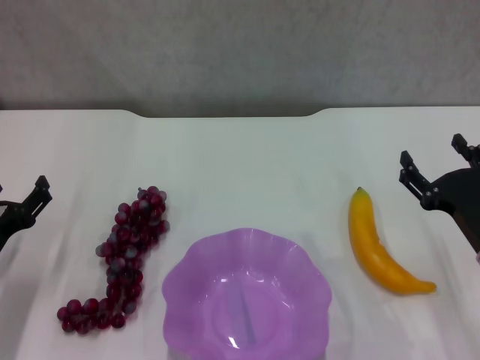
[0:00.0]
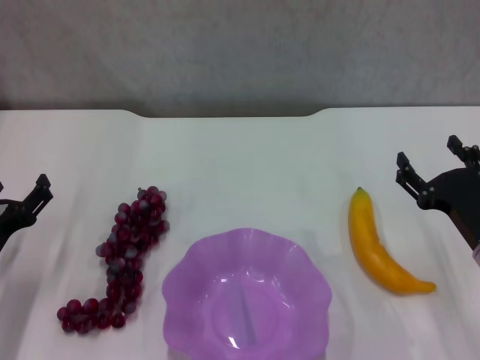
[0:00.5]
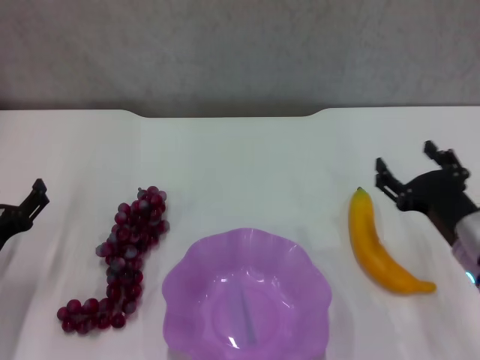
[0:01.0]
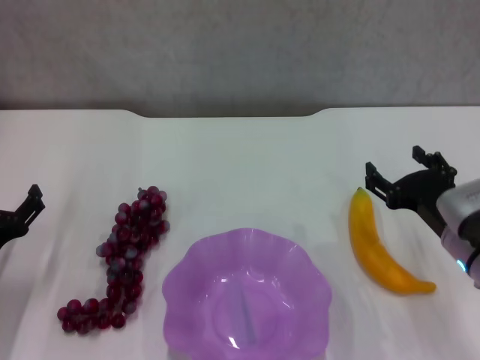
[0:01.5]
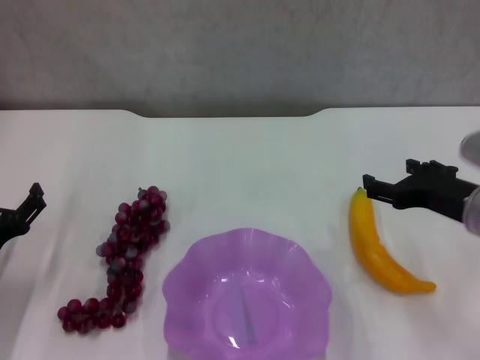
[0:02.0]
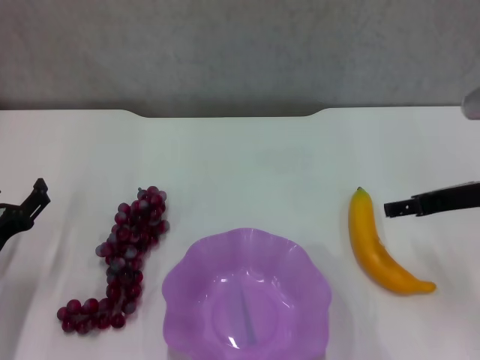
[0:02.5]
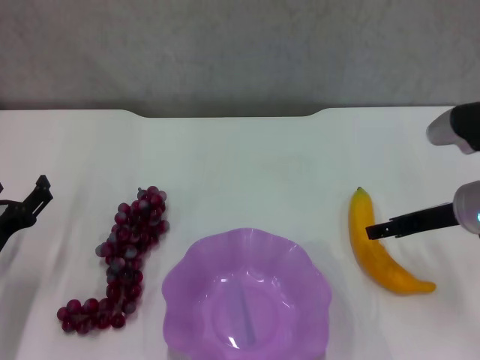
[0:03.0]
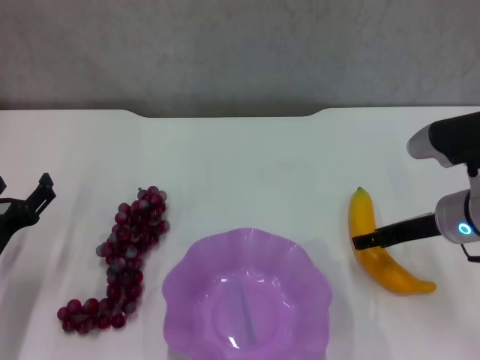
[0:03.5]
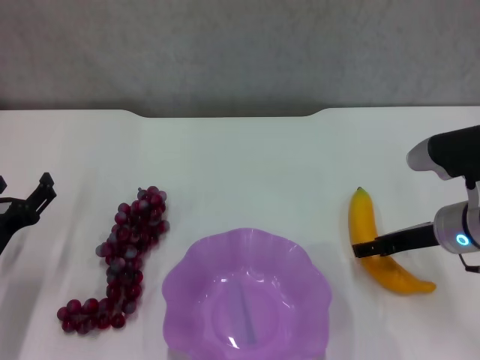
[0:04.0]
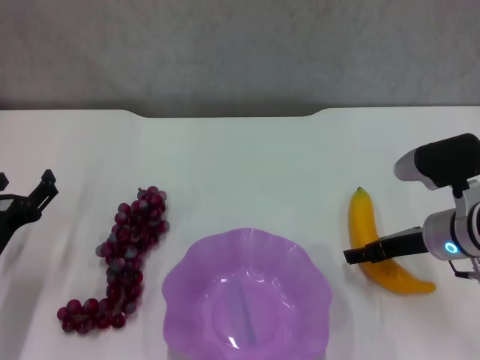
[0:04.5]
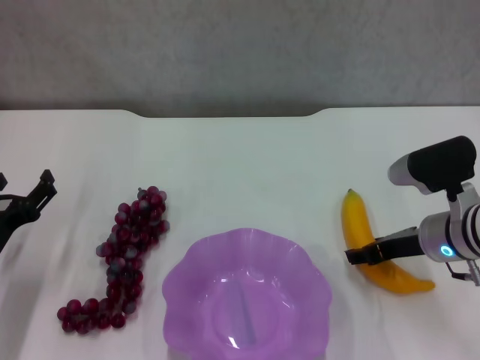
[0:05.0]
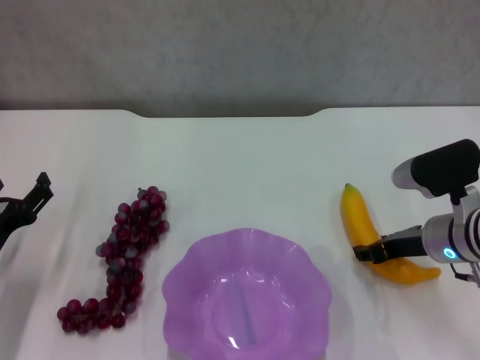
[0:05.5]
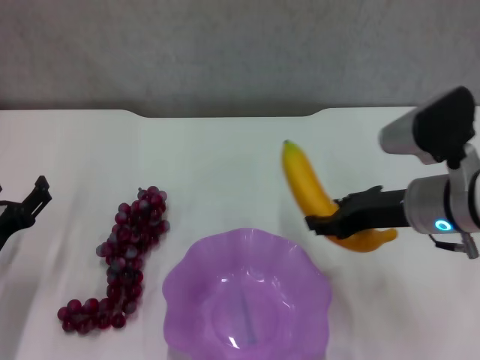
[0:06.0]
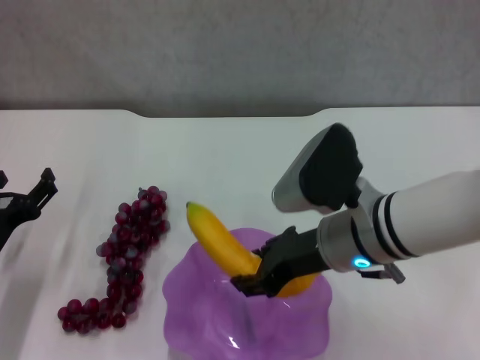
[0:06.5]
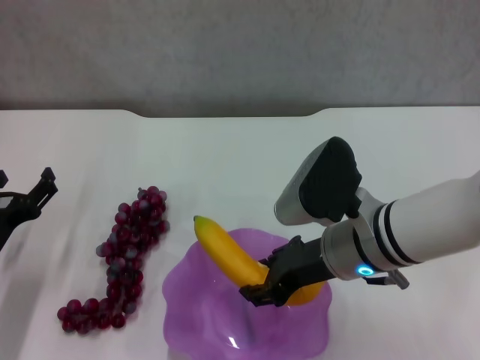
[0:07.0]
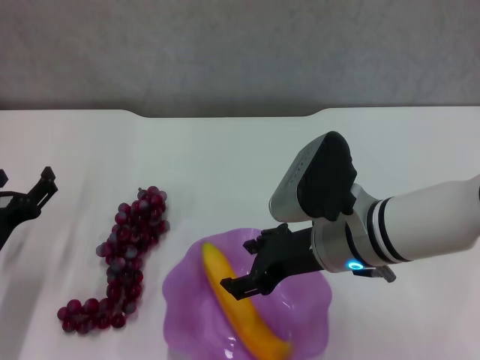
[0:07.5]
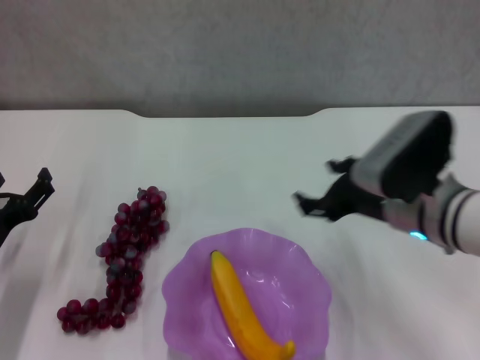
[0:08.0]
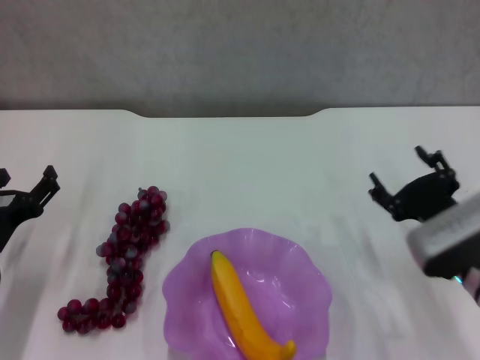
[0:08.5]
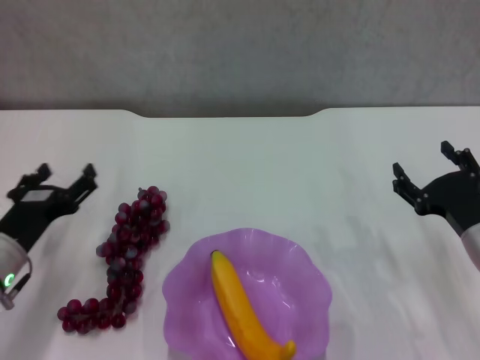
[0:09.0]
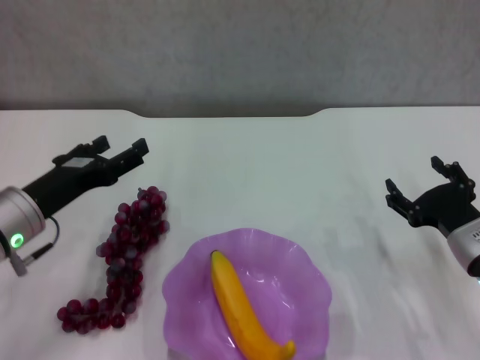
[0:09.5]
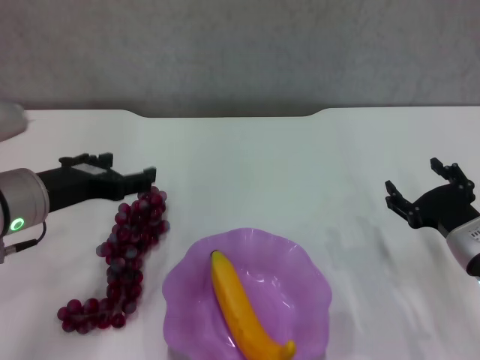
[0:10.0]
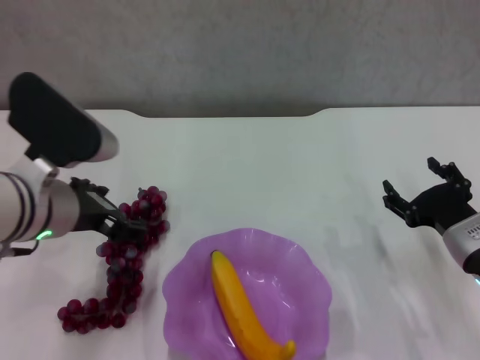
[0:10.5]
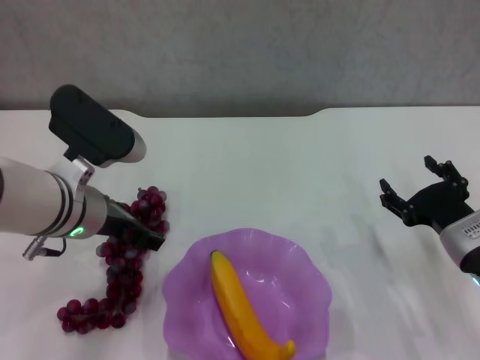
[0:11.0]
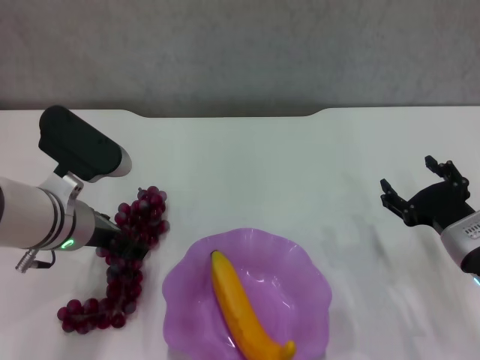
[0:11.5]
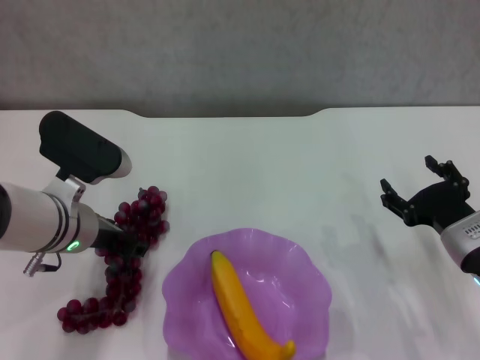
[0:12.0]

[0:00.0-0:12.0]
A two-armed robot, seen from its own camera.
Step, 0:00.0 to 0:05.0: Grasp the banana with right gripper.
Step, 0:05.5 to 0:07.5: Place the banana in the purple plate with right gripper.
0:00.0 to 0:02.0: The right gripper travels upward by roughly 10 cm.
0:02.0 to 0:04.0: The right gripper ends up about 5 cm from where it was.
0:04.0 to 0:06.0: The right gripper is displaced upward and to the left by approximately 10 cm, and closes its fingers.
0:06.0 to 0:08.0: The right gripper travels to the left and back again, approximately 10 cm each way, and opens.
0:08.0 to 0:10.0: The right gripper moves downward and to the right, approximately 10 cm. The left gripper is displaced upward and to the right by about 15 cm.
0:10.0 to 0:12.0: The left gripper changes place by roughly 5 cm.

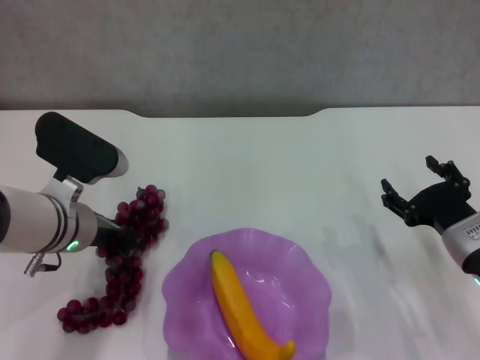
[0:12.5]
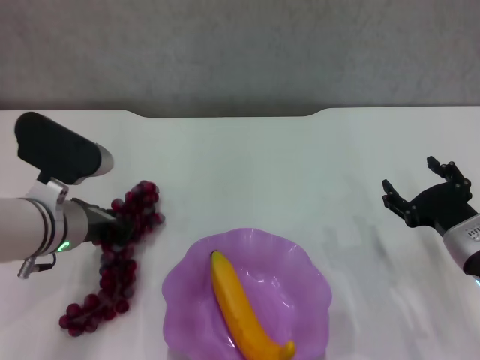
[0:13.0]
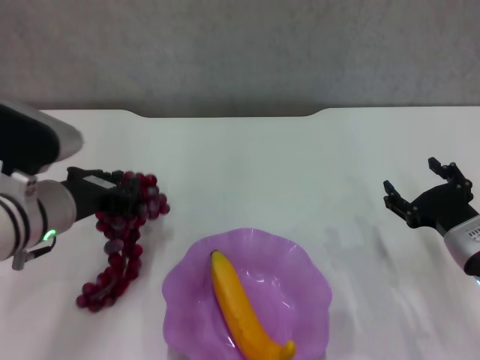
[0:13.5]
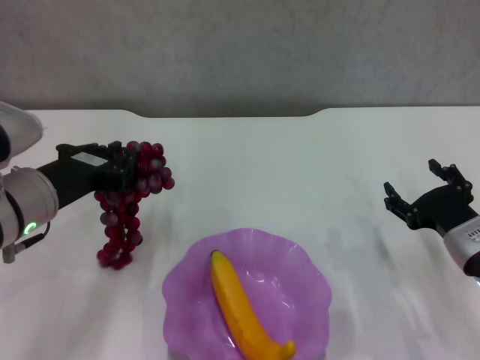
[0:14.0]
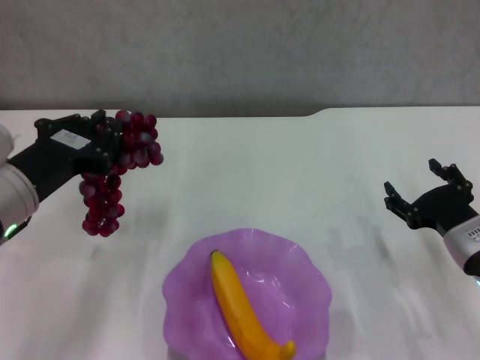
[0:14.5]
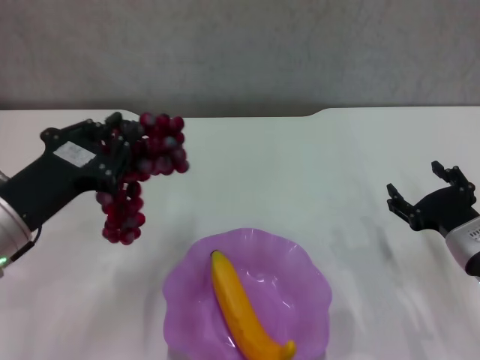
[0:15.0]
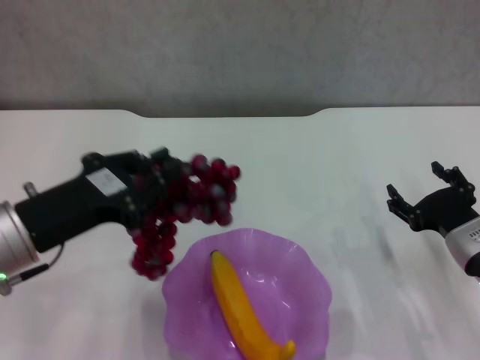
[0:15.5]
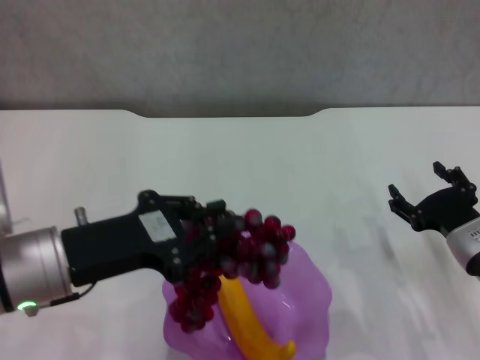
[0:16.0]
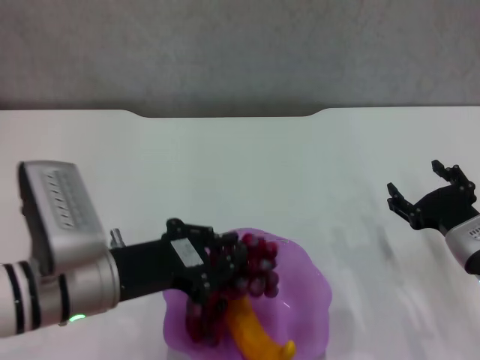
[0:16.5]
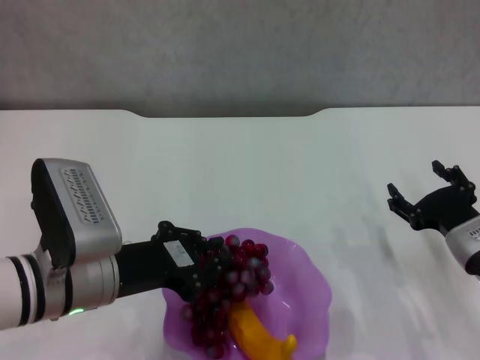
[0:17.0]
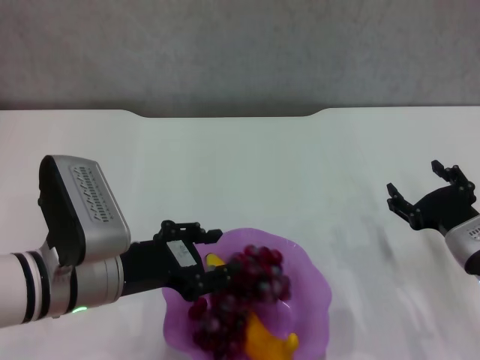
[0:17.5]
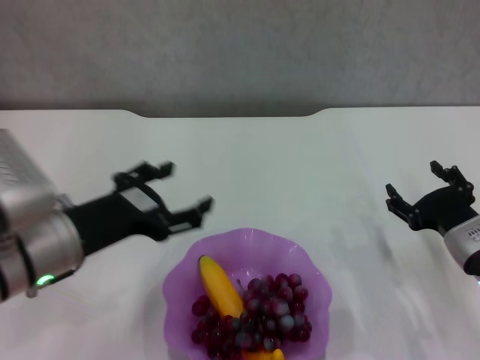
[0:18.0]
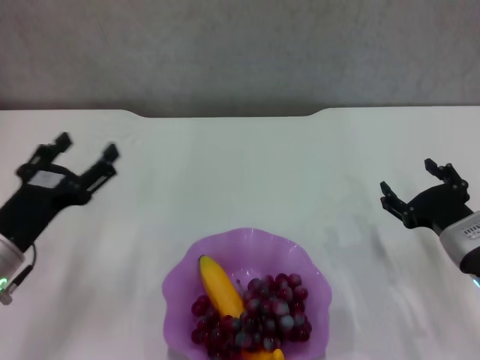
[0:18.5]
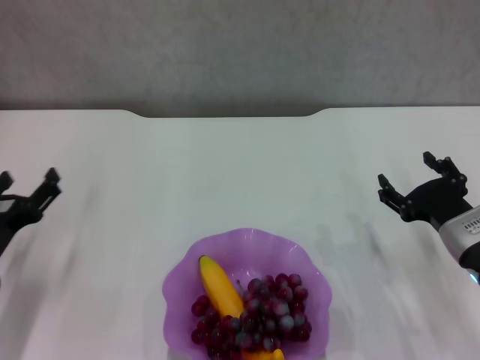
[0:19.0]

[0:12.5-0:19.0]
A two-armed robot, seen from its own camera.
Step, 0:13.0 to 0:17.5: Place the grape in the purple plate with left gripper.
0:12.5 to 0:14.5: The left gripper heads backward, covering roughly 5 cm, and closes up.
0:14.5 to 0:17.0: The left gripper is displaced to the right by some 5 cm.
0:17.0 to 0:19.0: The left gripper heads to the left and downward, covering about 15 cm, and opens.
